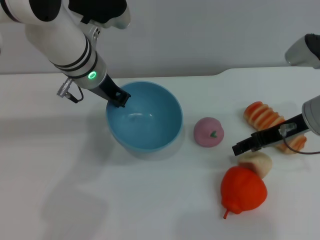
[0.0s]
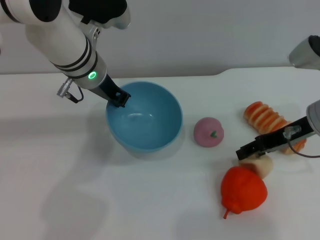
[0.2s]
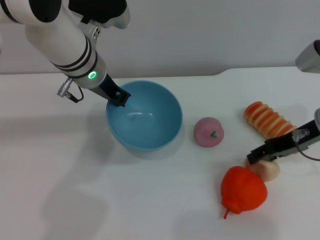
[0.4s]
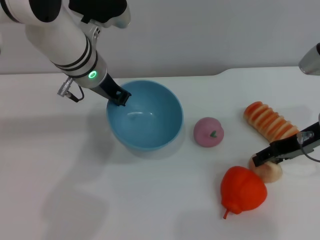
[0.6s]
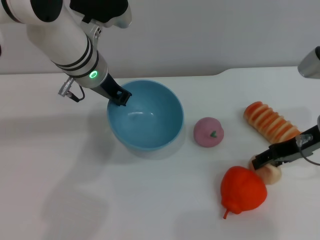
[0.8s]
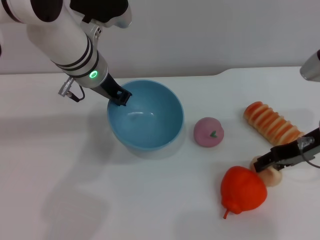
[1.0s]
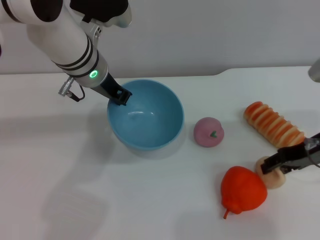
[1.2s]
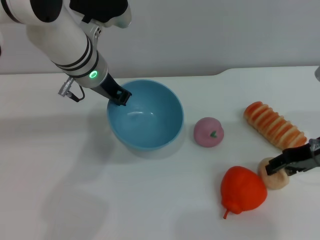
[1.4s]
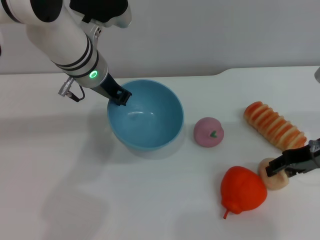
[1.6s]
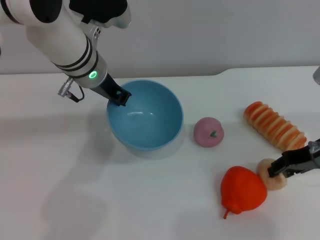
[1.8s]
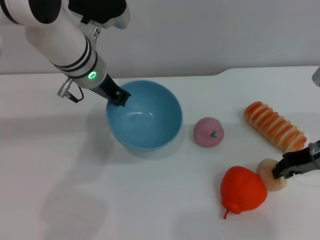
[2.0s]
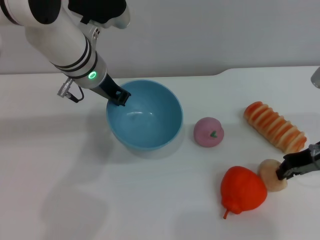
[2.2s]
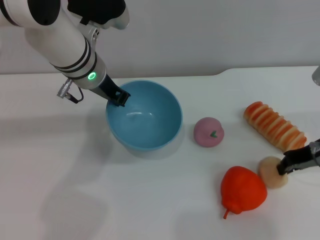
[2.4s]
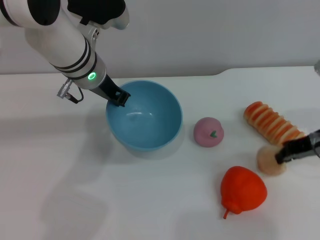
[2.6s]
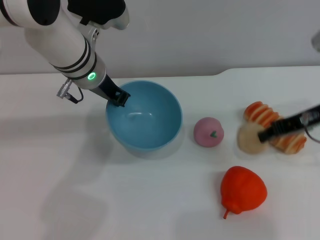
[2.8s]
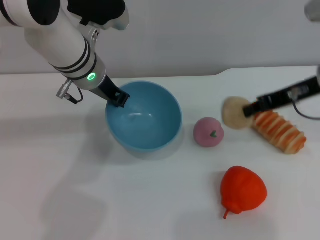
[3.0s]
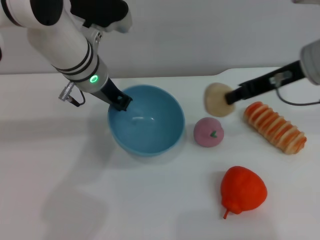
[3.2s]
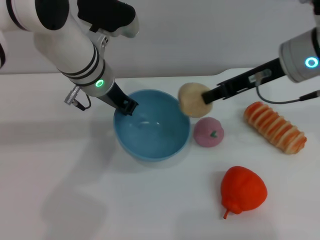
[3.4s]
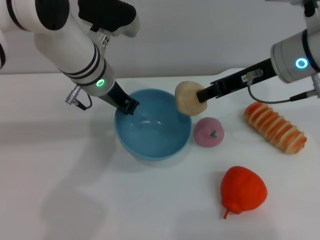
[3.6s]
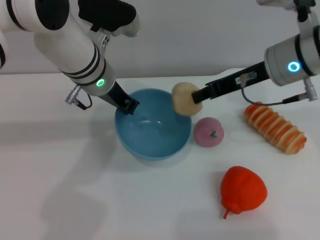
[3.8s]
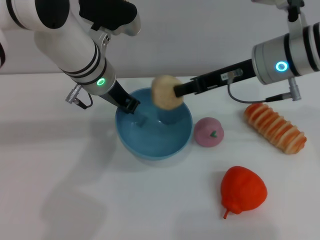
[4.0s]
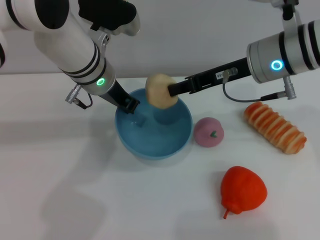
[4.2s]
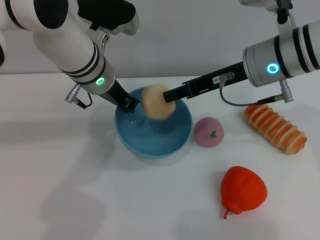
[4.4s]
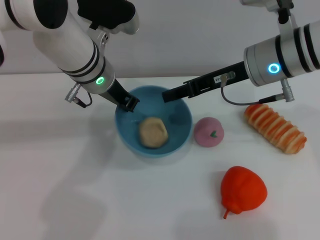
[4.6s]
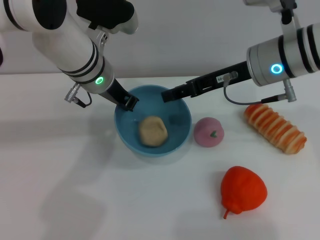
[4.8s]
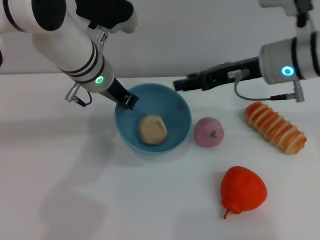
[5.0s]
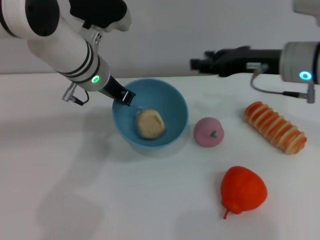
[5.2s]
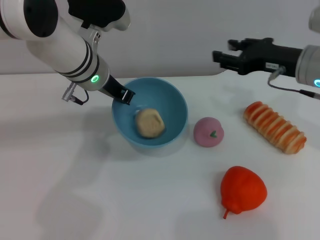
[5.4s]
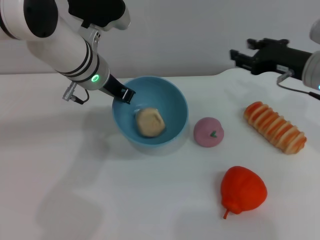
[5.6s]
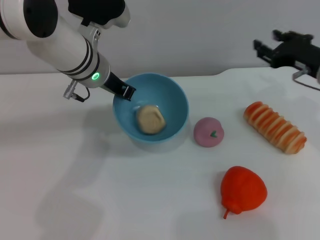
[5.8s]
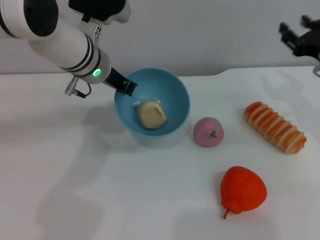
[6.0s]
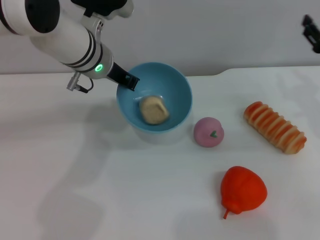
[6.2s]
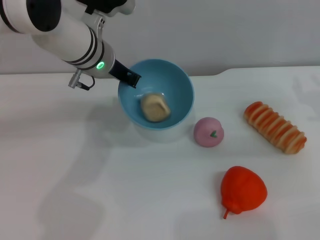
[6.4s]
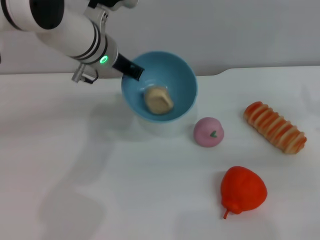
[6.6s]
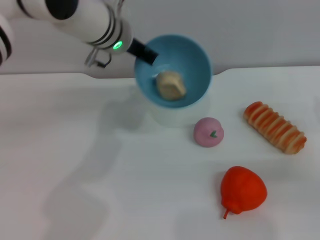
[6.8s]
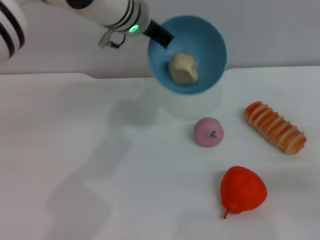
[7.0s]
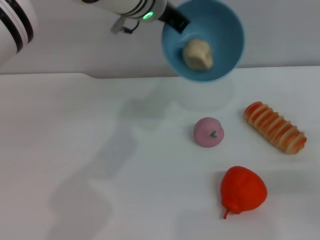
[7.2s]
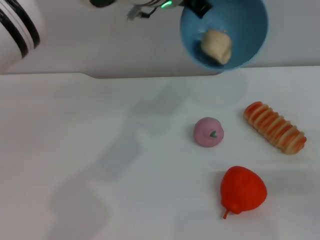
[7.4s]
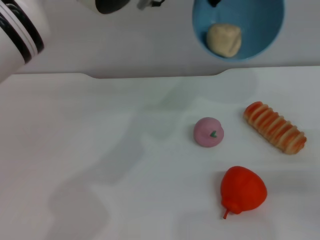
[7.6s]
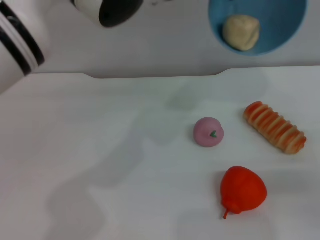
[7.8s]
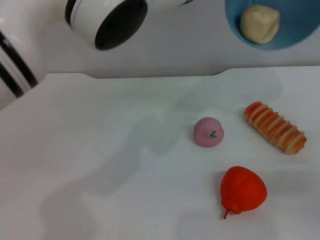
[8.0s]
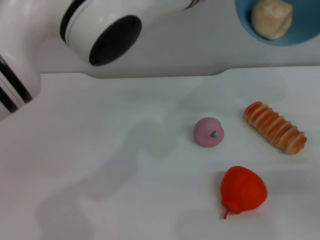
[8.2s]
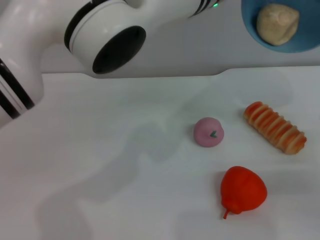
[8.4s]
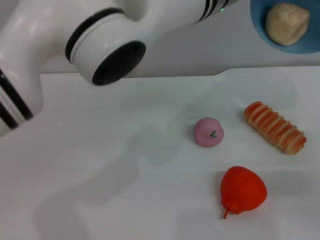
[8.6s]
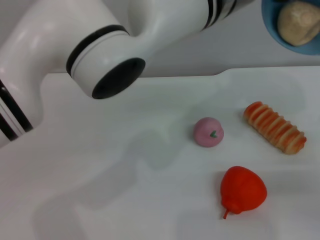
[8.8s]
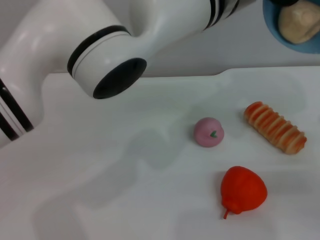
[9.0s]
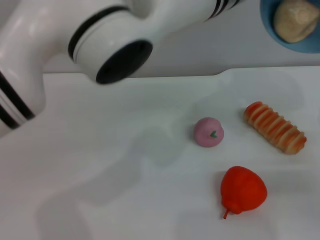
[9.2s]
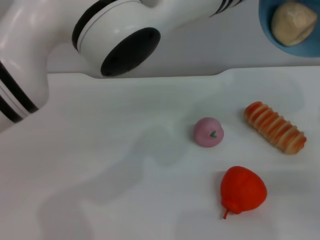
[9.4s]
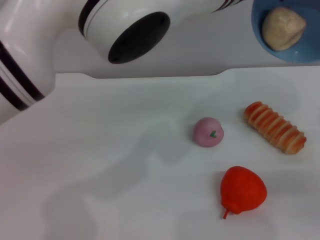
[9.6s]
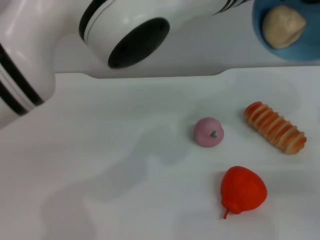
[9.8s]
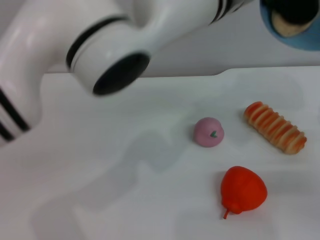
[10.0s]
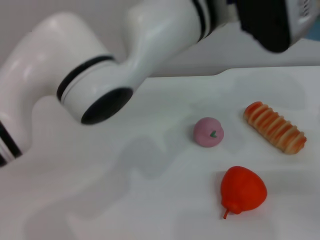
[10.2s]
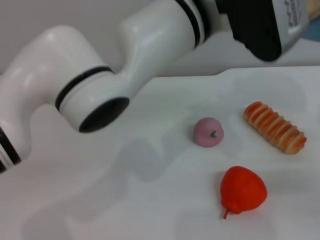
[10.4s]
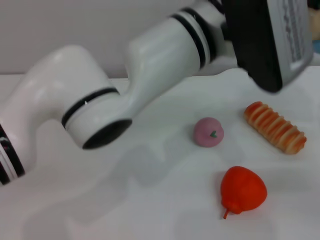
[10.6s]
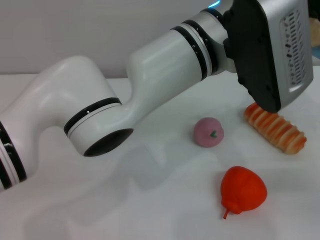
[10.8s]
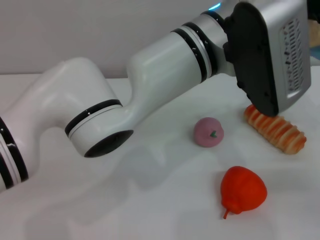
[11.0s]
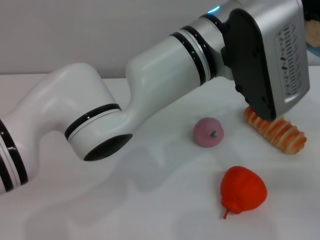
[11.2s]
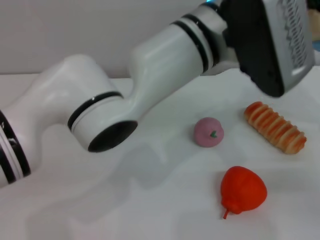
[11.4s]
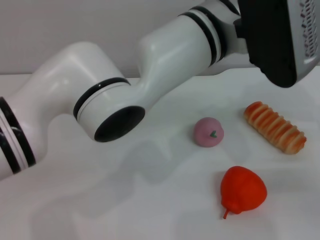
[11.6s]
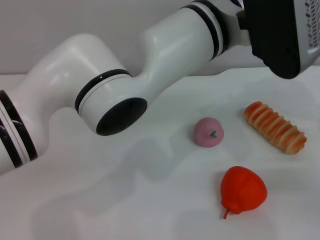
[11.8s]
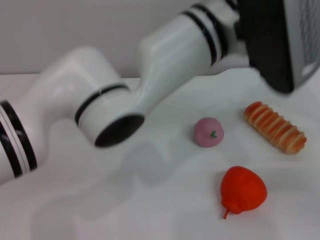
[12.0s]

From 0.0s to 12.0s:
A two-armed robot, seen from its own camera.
Task of the whole recording: put the egg yolk pastry into the blue bowl and pour it out repeatedly.
Step, from 0.0s to 3.0s: Pick up the egg yolk pastry with the right gripper.
Step, from 3.2s to 5.0s: Place the egg yolk pastry into the bowl.
From 0.0s to 1.6s: The grippers make only small movements.
From 1.6s to 3.0s: The right gripper goes roughly 10 cm upward, and closes its fingers.
From 3.0s to 4.4s: The right gripper shifts about 10 cm to the left.
From 4.4s to 6.0s: The right gripper travels to the right and downward by some 15 cm, and opens its fingers.
From 6.0s to 7.6s: The right gripper moves backward, downward and to the right, roughly 15 cm. The left gripper is displaced to the right and upward by approximately 15 cm.
From 7.6s to 9.0s: The left gripper shifts about 5 cm backward.

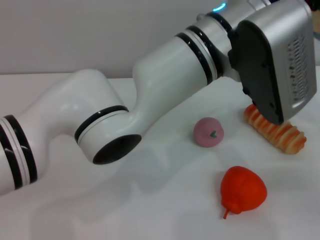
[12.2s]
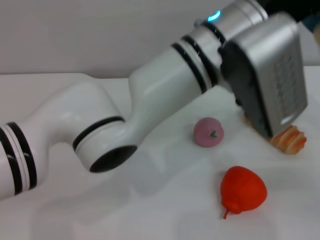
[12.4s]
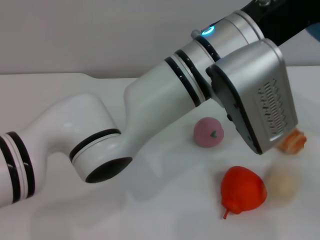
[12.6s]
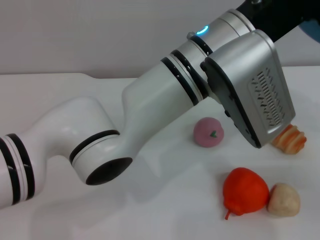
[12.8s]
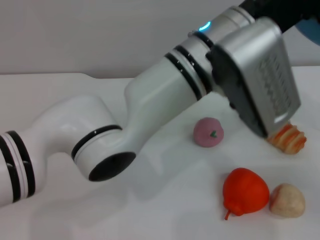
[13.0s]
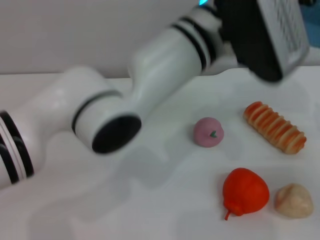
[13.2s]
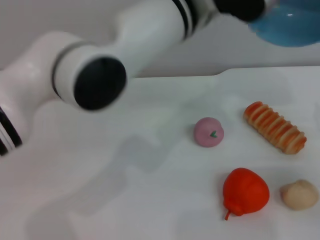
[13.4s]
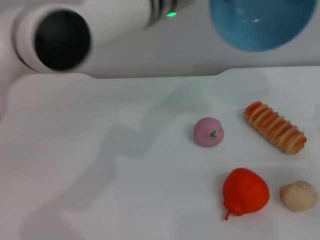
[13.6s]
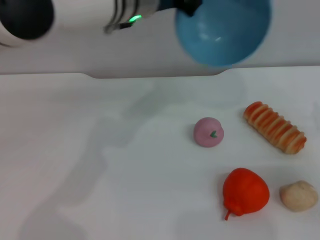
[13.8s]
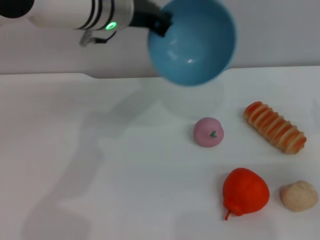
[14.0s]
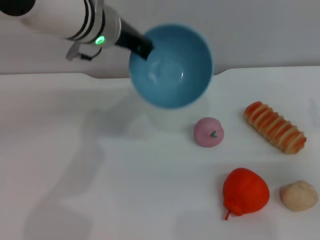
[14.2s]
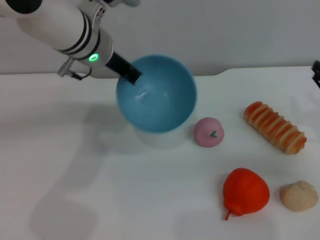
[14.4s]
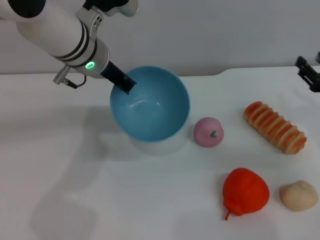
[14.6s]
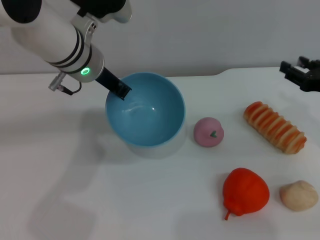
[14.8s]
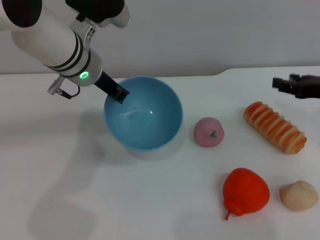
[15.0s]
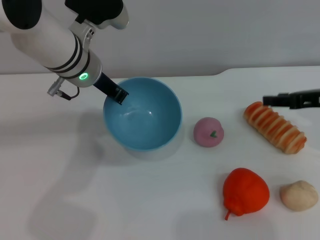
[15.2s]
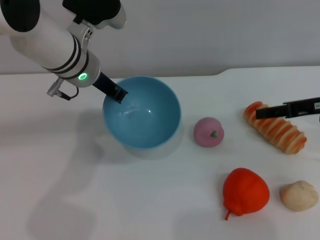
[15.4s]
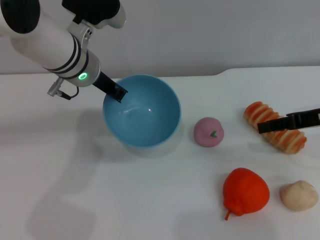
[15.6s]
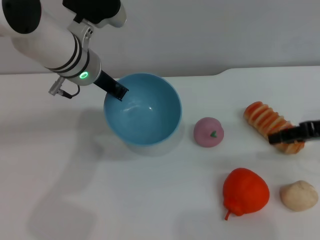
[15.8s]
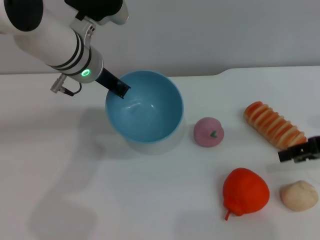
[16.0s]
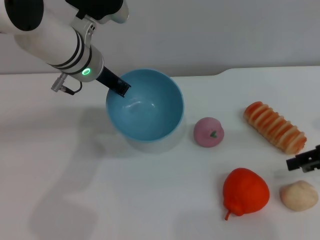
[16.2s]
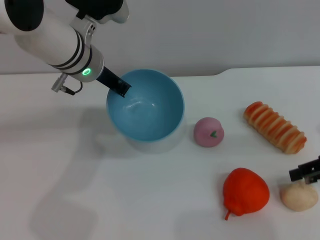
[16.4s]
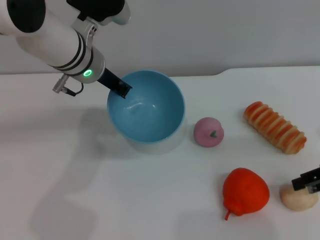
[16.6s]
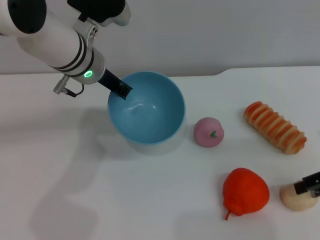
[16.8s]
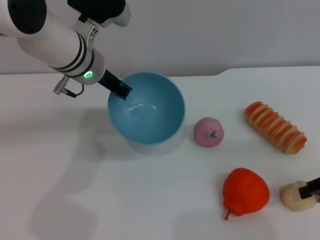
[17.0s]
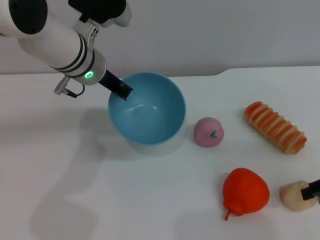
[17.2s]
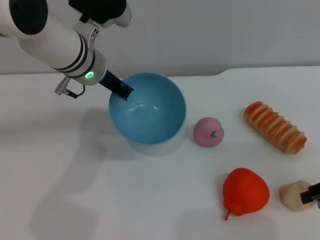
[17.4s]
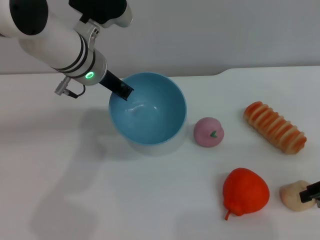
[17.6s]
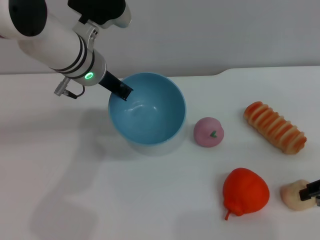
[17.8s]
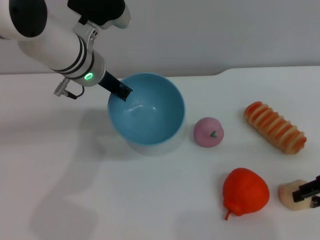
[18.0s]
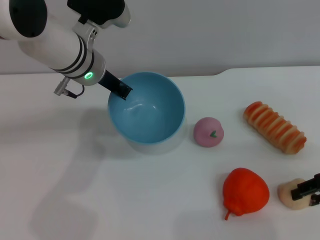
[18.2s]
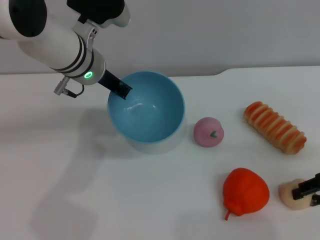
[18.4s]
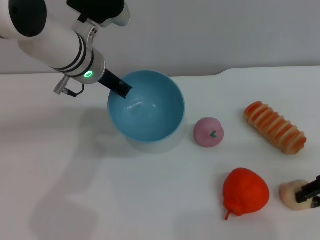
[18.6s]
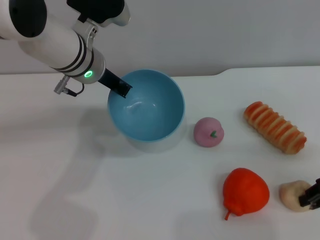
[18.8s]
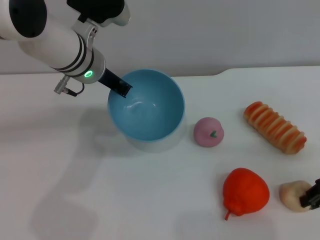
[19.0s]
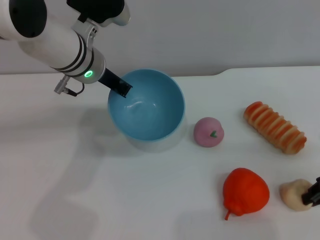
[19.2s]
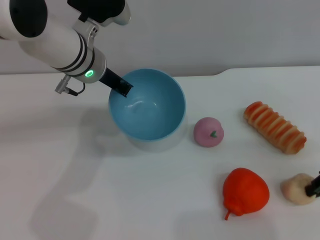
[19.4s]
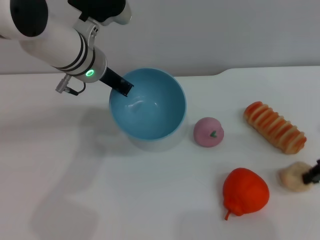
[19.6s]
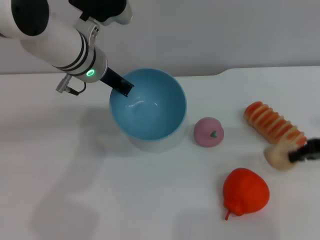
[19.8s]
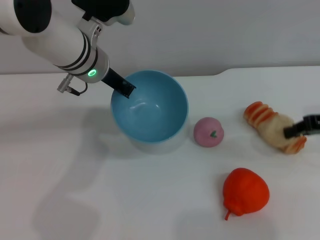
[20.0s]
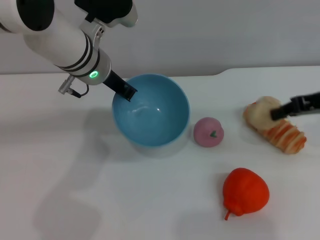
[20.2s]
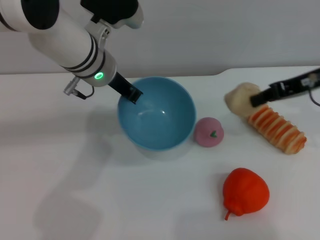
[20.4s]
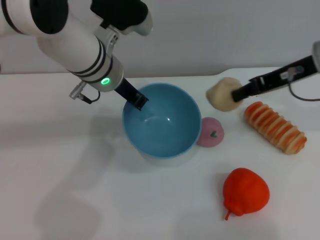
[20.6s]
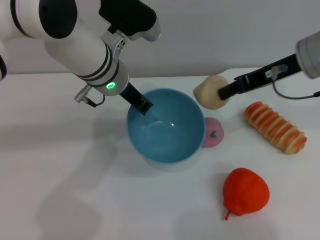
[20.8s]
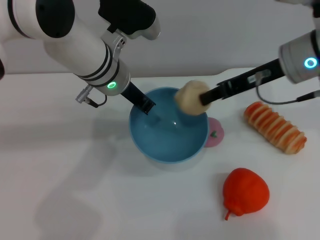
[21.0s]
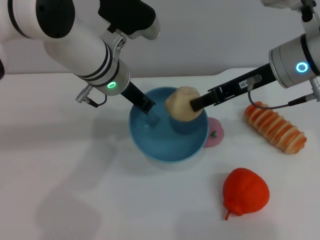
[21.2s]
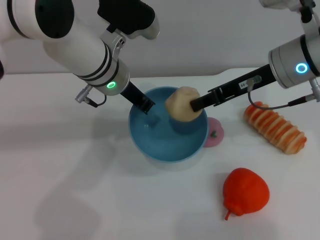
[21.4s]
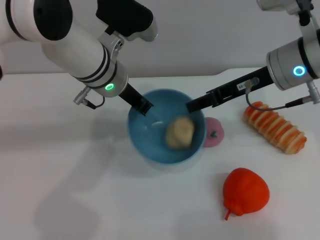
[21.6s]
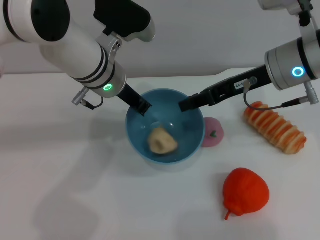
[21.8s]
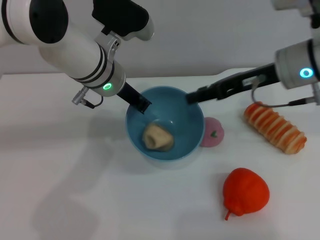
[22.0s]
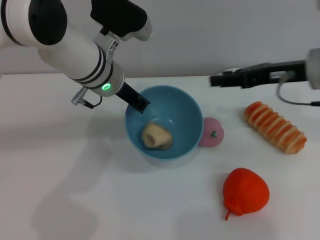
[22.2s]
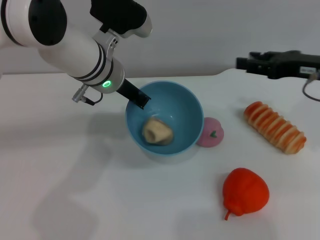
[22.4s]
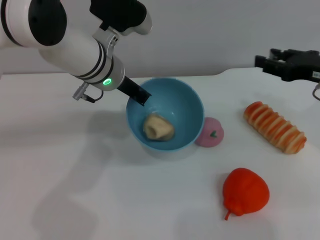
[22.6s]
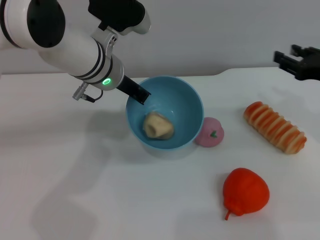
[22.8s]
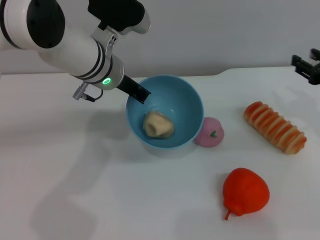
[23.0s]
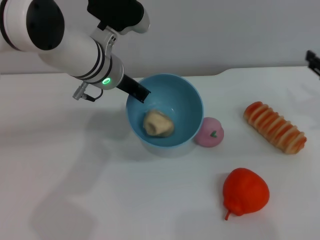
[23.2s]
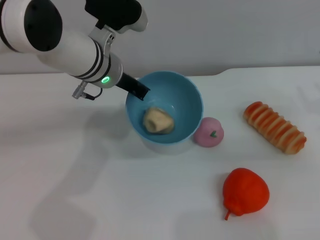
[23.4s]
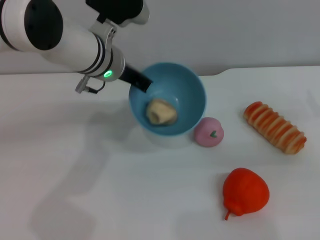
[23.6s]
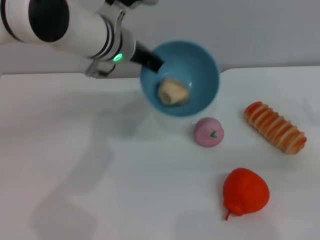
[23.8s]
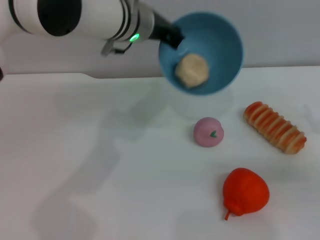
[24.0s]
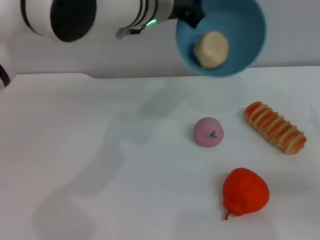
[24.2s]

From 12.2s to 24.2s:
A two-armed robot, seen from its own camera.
Task of the whole recording: put the egg yolk pastry into the blue bowl and pour it out repeatedly.
Step, from 13.2s to 20.0s: Pick up the egg yolk pastry with the right gripper.
Step, from 20.2s to 22.2s: Place the egg yolk pastry into the bowl.
From 12.2s to 13.8s: The left gripper travels to the left and forward by about 15 cm.
From 13.8s to 15.2s: The right gripper travels upward and forward by some 10 cm. Meanwhile the left gripper goes approximately 10 cm to the left and downward.
From 15.2s to 16.6s: The right gripper ends up some 5 cm from where it was.
From 16.6s to 18.2s: There are only small adjustments of the grippers.
From 18.2s to 19.8s: The right gripper closes its fingers.
From 19.8s to 21.2s: The right gripper travels to the left and upward by approximately 15 cm.
From 21.2s to 22.6s: The right gripper travels to the right by some 10 cm, and opens its fingers.
From 22.6s to 24.2s: The right gripper is displaced downward, backward and to the right by some 15 cm. Meanwhile the left gripper travels upward and to the right by some 10 cm.
